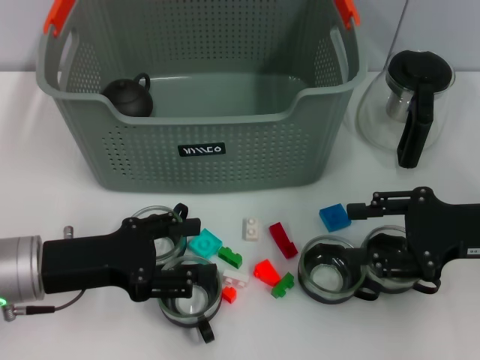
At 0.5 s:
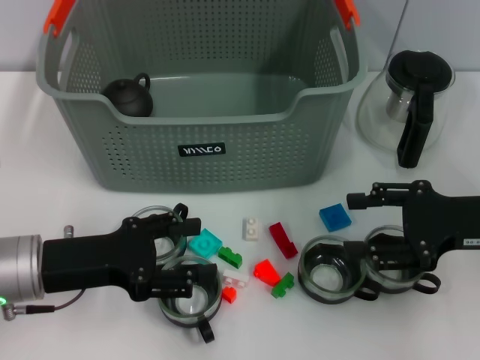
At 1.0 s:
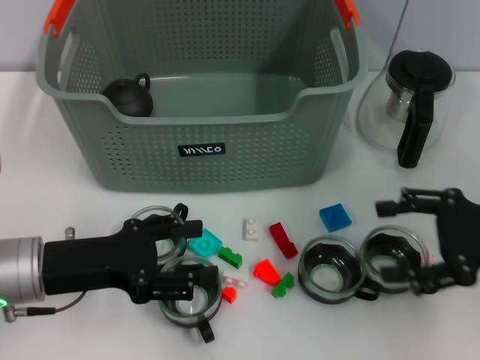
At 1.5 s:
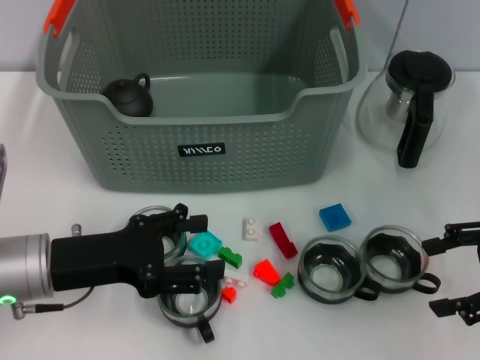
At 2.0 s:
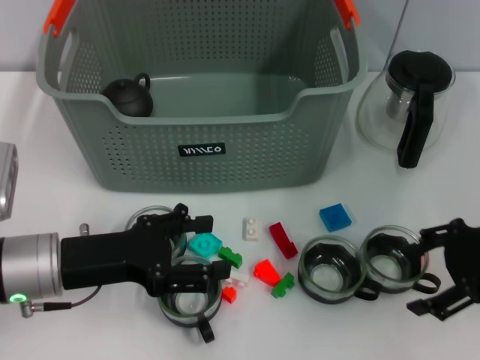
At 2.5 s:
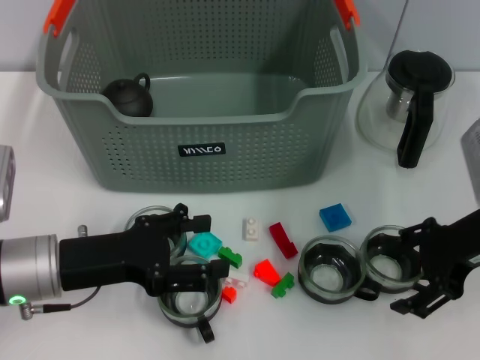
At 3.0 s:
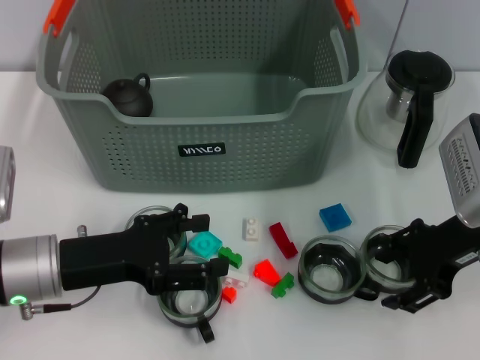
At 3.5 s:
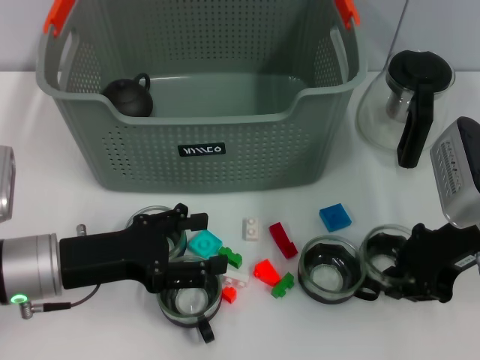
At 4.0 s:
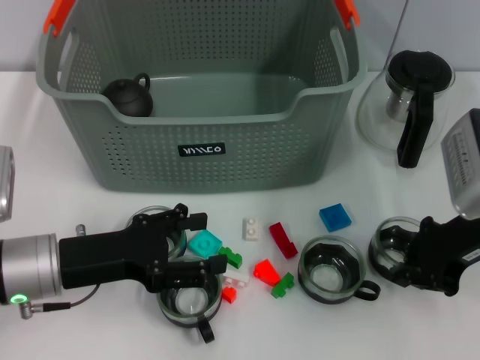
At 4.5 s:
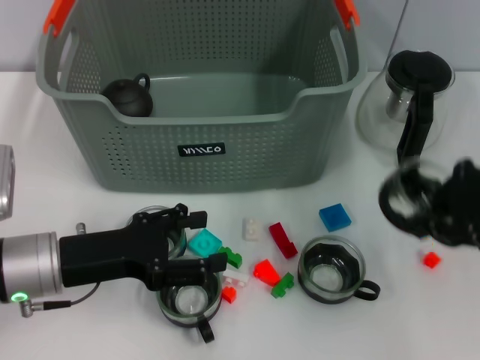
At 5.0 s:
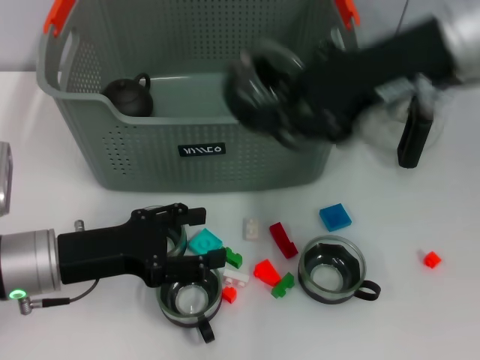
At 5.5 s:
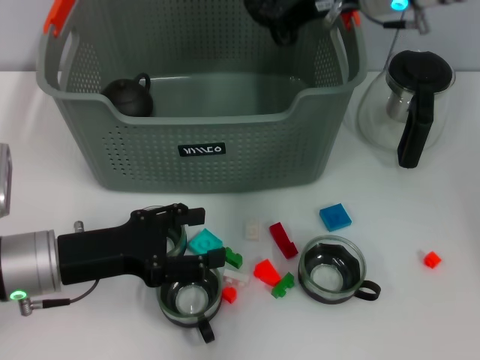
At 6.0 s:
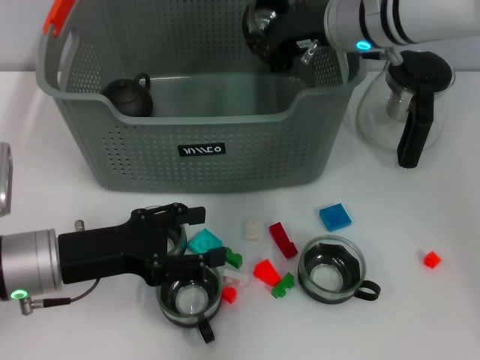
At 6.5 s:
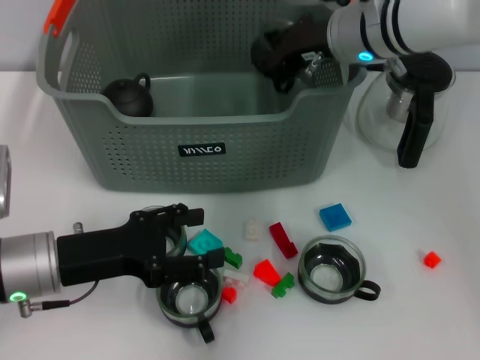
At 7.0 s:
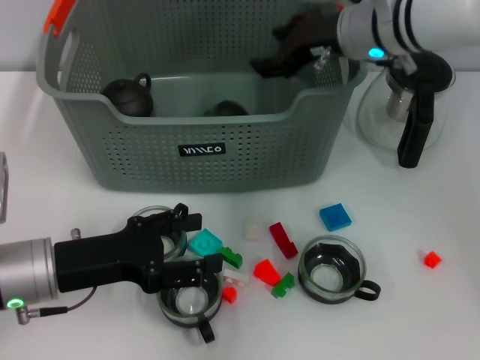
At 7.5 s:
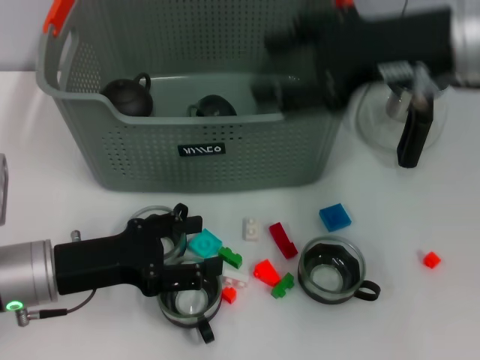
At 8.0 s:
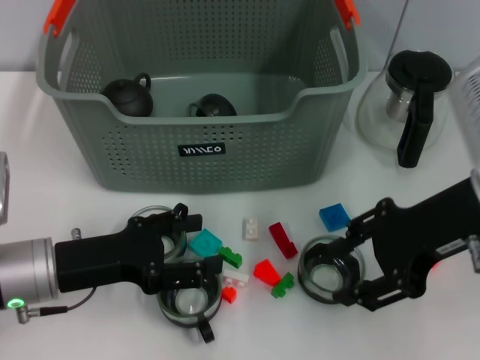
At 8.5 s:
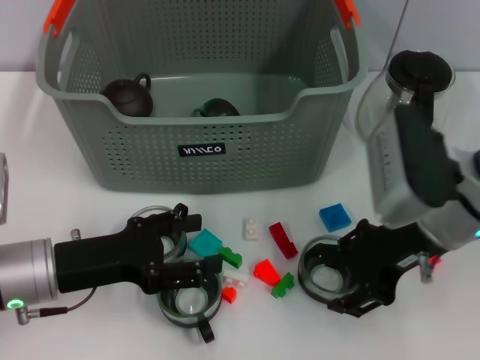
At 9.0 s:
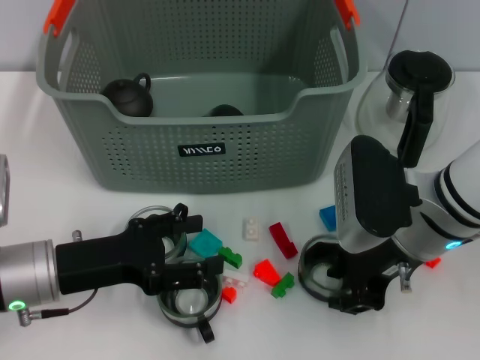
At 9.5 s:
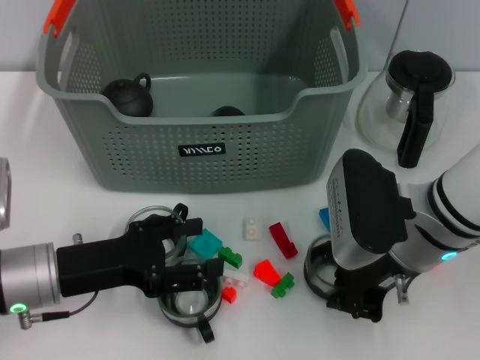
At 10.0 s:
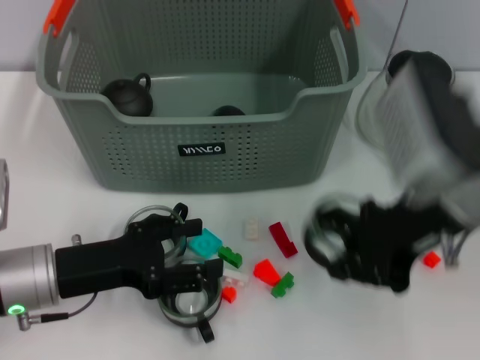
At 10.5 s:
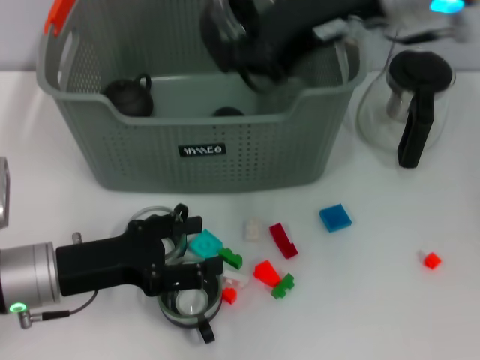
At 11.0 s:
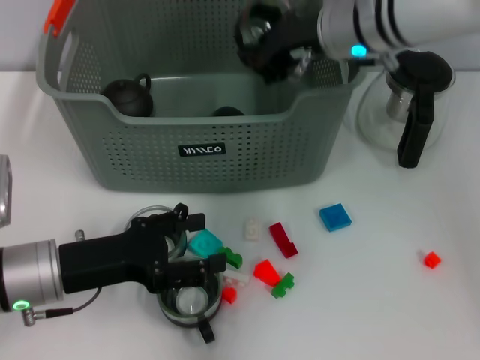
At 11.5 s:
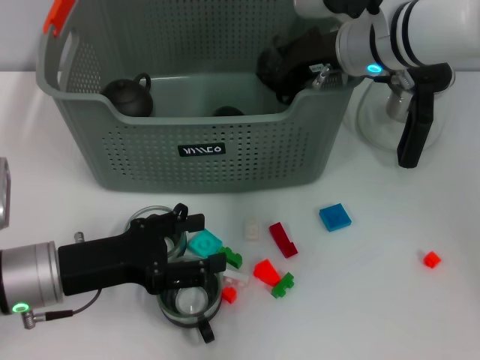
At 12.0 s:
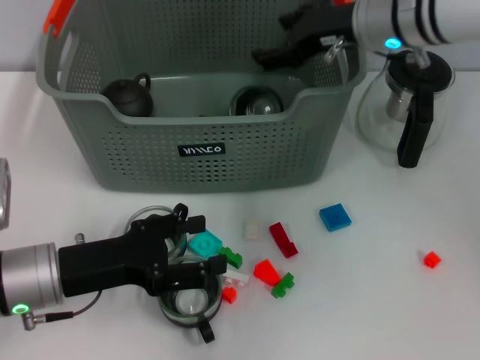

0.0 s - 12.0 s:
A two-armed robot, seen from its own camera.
Task of the whole recording: pick up the teacup on the table and place it into the storage bin, pick up the block on the table and place it into the storage bin.
Step, 0.0 s - 3.5 s: Grasp the cup with right gripper.
Step, 4.0 s - 6.5 s: Place the cup in the storage box with right gripper.
Step, 7.5 s - 9.0 s: Grasp the cup with right gripper.
2.0 s - 4.0 s: The right gripper closes.
4.0 s - 6.0 s: The right gripper moves to the left, forward and upward, roughly 20 cm.
6.0 s - 8.0 s: The right gripper shifts about 20 cm backward and to the right, and opens.
8.0 s - 10.0 s: The right gripper travels downward and back again, about 10 cm each way, and closes its fingers.
10.0 s - 12.0 s: The right gripper heads forward, covering about 15 cm, and opens its fingers.

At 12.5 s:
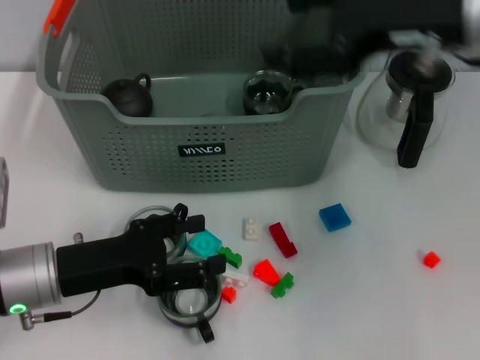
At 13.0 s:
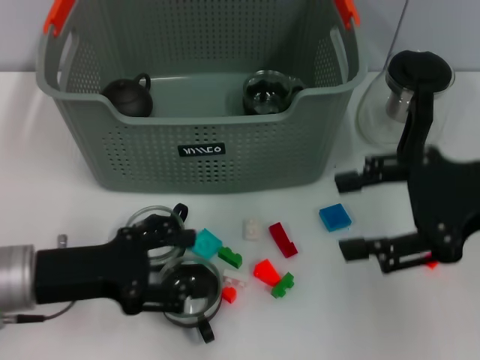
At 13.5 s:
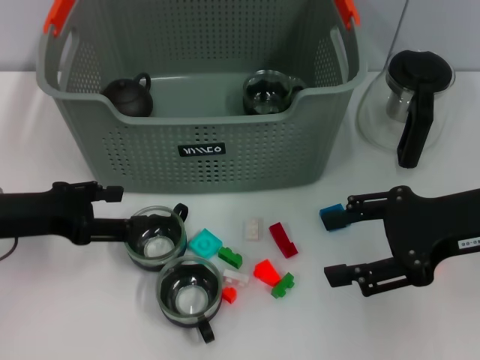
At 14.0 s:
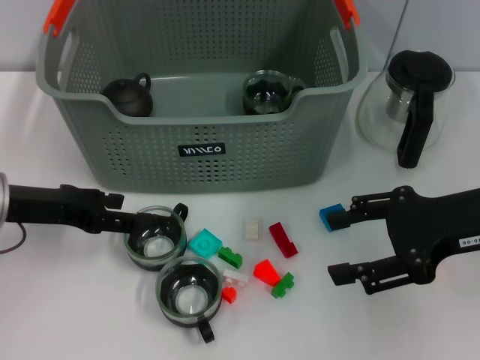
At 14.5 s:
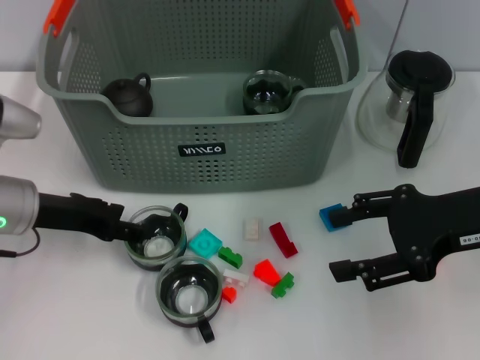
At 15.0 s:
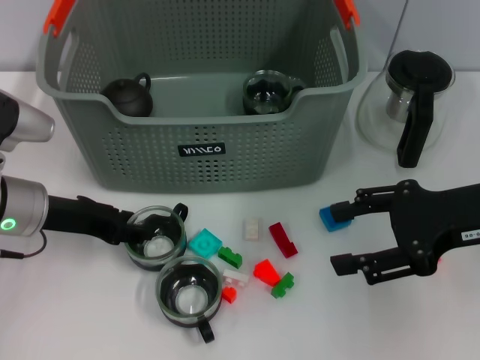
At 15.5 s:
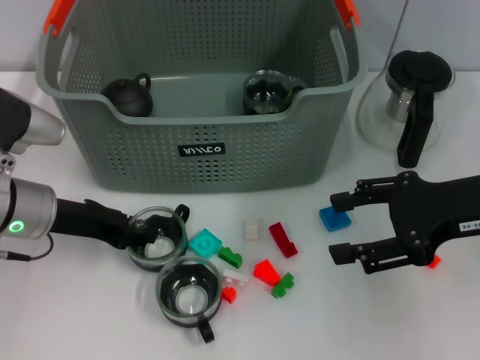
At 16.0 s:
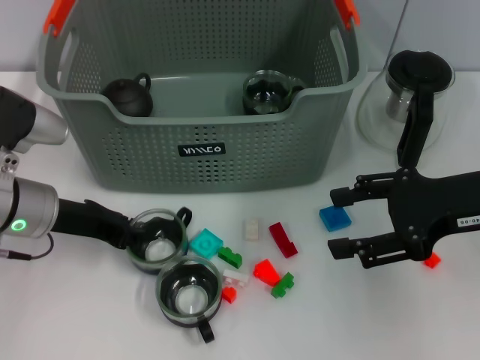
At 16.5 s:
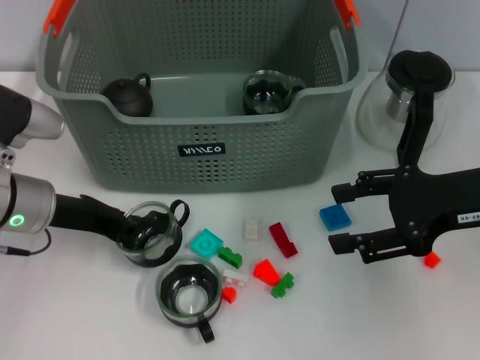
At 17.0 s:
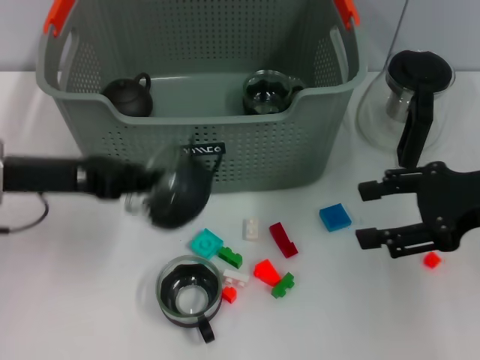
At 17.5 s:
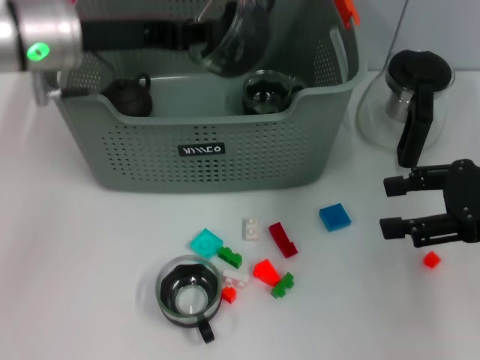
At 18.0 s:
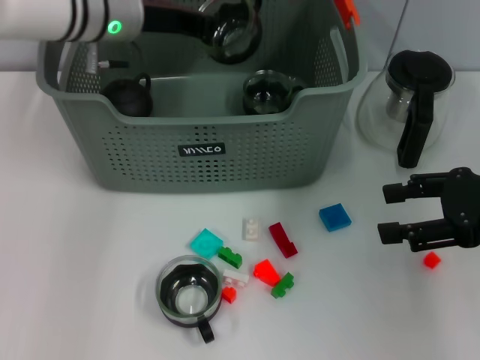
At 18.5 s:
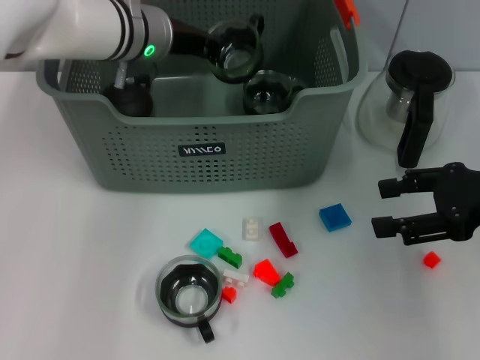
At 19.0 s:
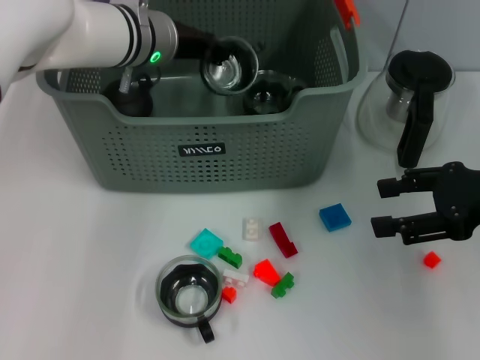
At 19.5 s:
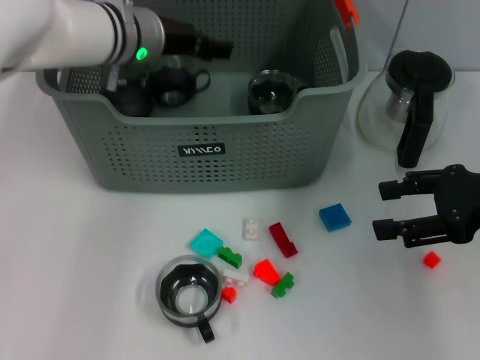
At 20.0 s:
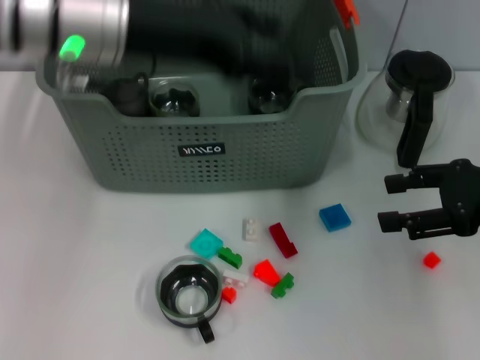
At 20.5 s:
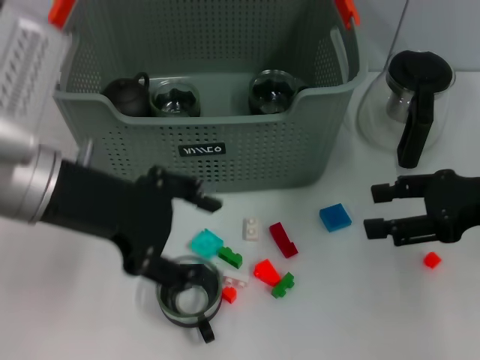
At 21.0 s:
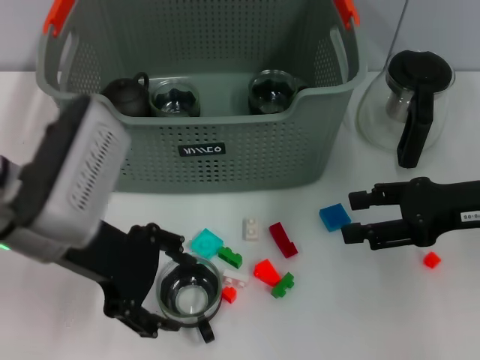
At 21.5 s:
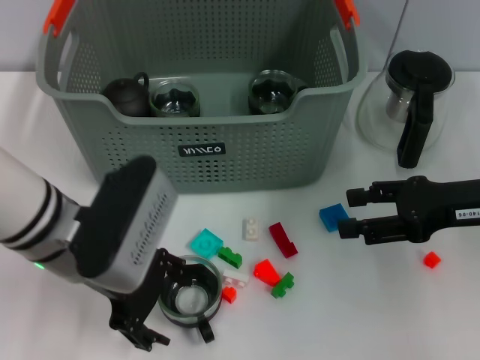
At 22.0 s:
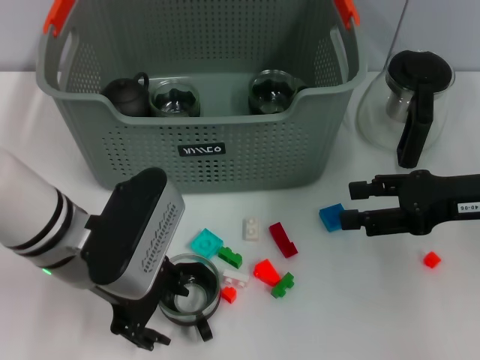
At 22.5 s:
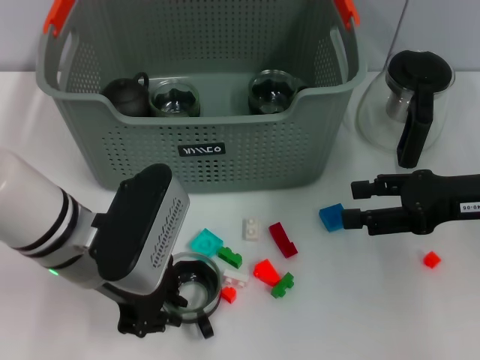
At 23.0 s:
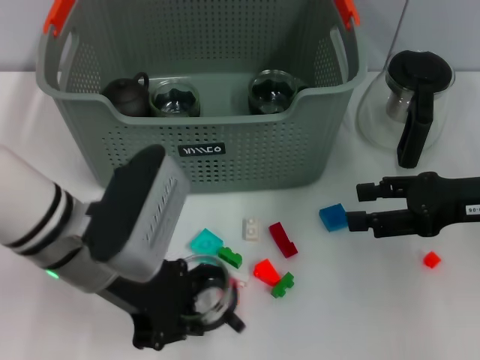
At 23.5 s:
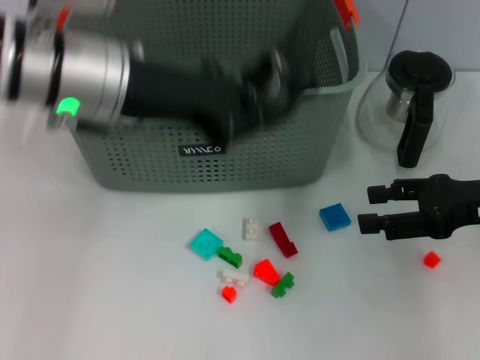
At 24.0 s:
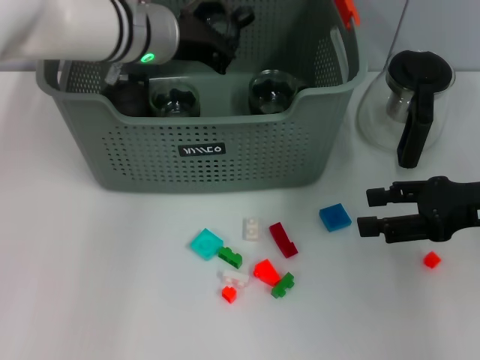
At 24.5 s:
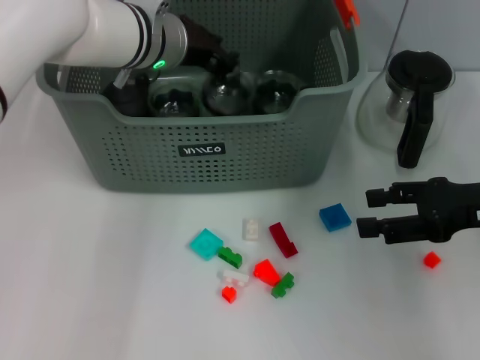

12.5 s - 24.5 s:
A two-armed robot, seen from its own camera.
Task of the whole recording: pick up the teacup on the table and place it into the storage bin, pick up the block on the table and place it into the storage bin.
Step, 12.5 s - 15.5 s: Grasp the cup with left gripper.
Step, 16.0 s - 19.5 s: Place the cup in the storage box with left gripper.
Step, 20.0 s - 22.5 s: Grasp the cup with left gripper.
12.5 s - 14.5 s: The left gripper is displaced forward by roughly 5 cm; the right gripper is displaced downward and to the right by about 10 cm.
14.5 s - 16.5 s: The left gripper closes up.
16.5 s - 18.5 s: The left gripper moves forward, to the right and upward, about 20 cm.
18.5 s - 20.5 s: The left gripper moves backward, roughly 20 cm, and opens its fingers.
20.5 s - 22.5 s: The left gripper shifts about 10 cm downward, and closes.
22.5 s - 24.5 s: The left gripper heads forward, covering some 15 cm.

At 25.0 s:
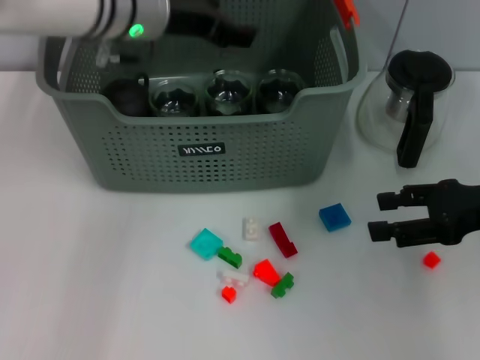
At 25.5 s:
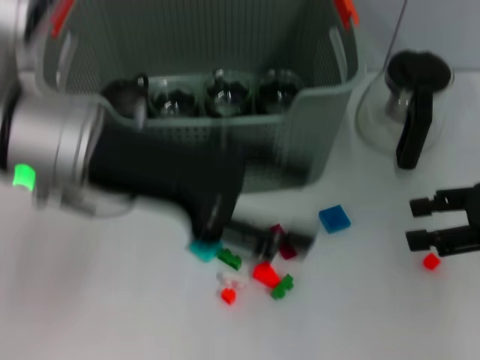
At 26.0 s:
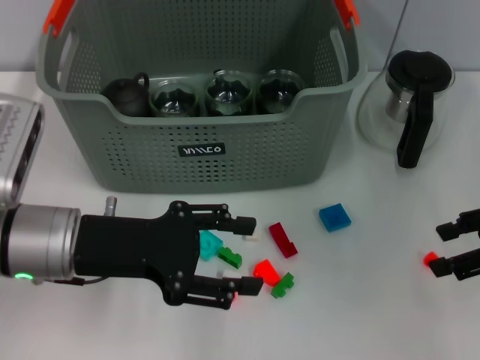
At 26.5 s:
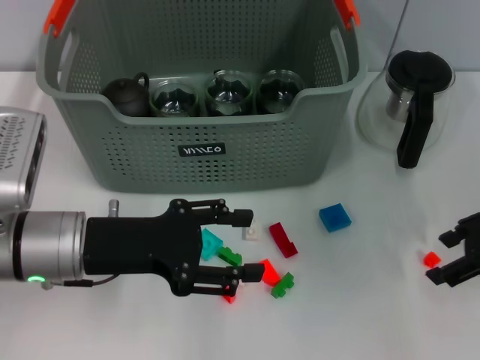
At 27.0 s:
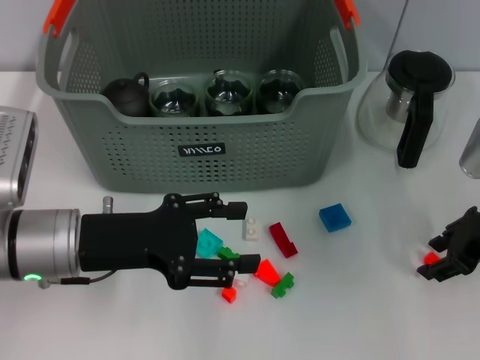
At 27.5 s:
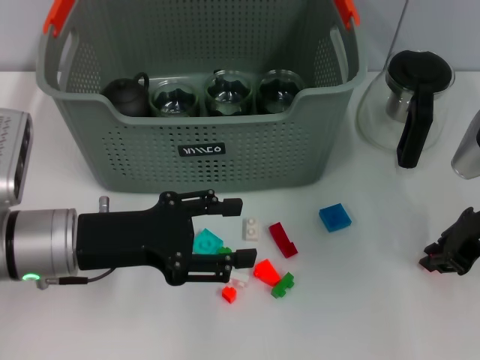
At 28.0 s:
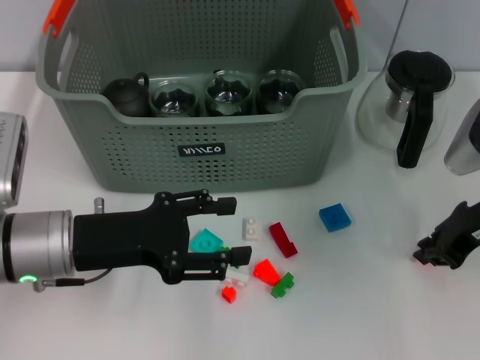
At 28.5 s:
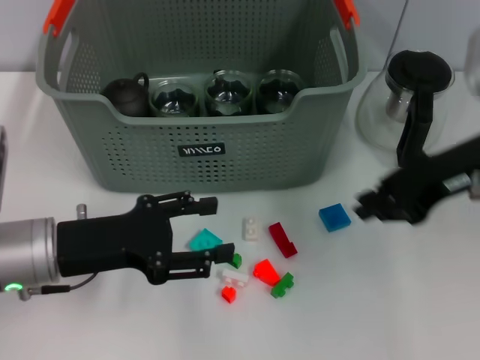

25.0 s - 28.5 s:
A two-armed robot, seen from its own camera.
Task of the whole recording: pick up the teacup on the table and place it into the storage bin, pick up the block on the table and place it into the storage bin.
Step, 25.5 s - 27.5 s: Grasp the orange block with right gripper.
25.0 s - 27.0 s: The left gripper heads backward, downward and to the left, covering about 20 cm.
27.0 s - 28.5 s: The right gripper moves upward, approximately 10 cm, and closes.
